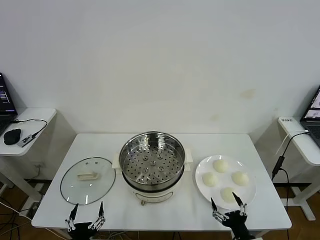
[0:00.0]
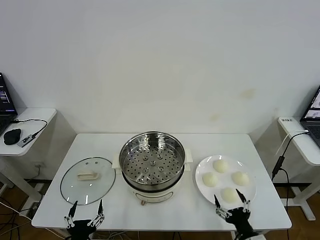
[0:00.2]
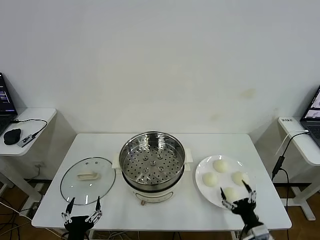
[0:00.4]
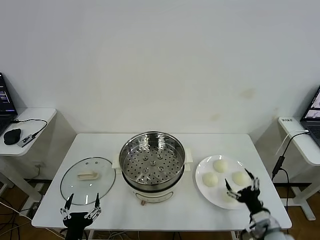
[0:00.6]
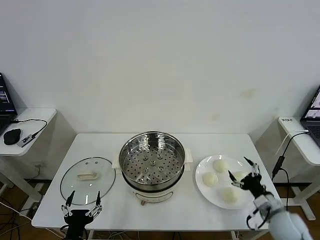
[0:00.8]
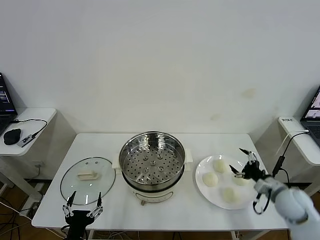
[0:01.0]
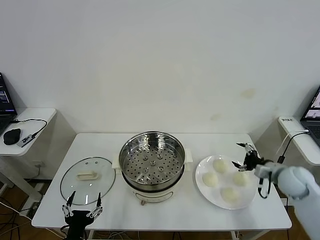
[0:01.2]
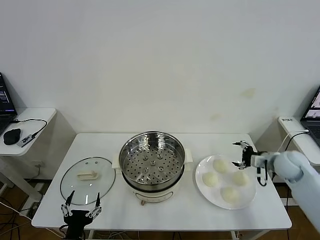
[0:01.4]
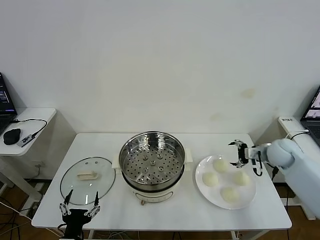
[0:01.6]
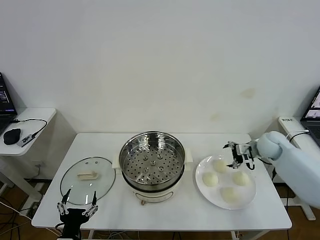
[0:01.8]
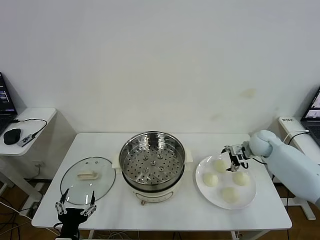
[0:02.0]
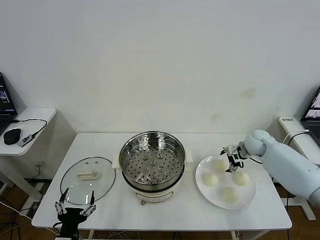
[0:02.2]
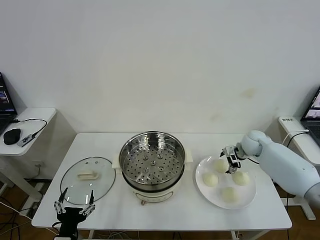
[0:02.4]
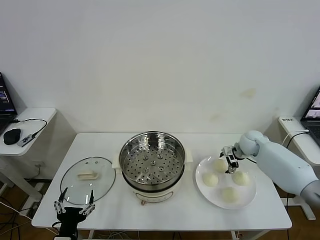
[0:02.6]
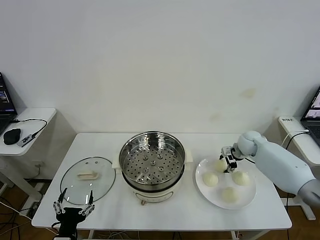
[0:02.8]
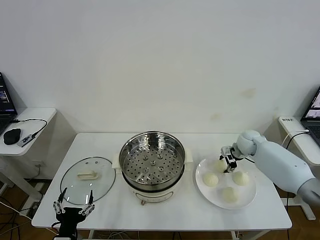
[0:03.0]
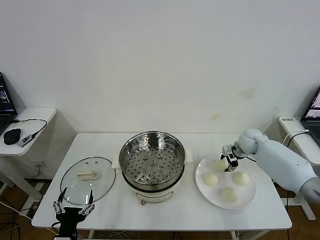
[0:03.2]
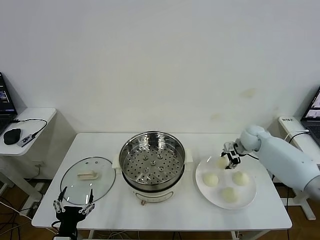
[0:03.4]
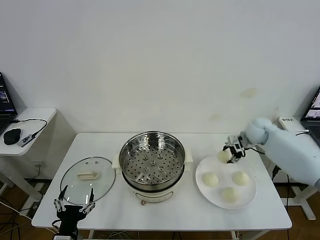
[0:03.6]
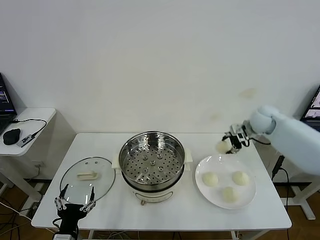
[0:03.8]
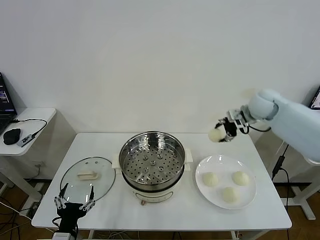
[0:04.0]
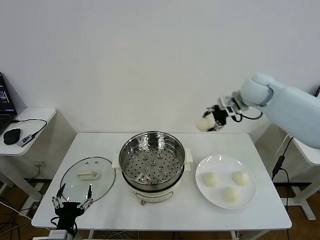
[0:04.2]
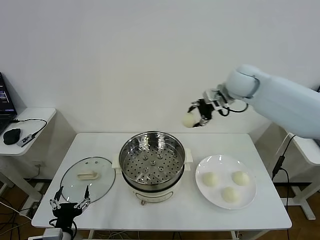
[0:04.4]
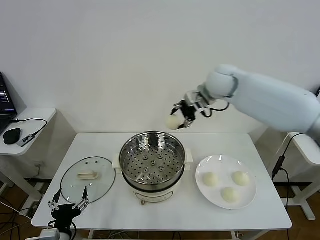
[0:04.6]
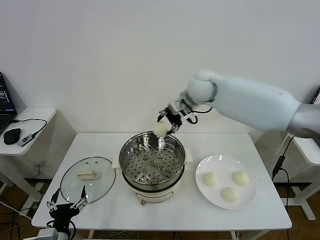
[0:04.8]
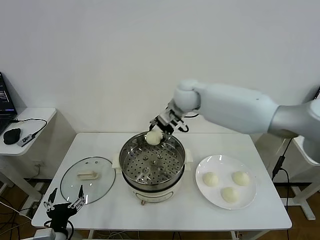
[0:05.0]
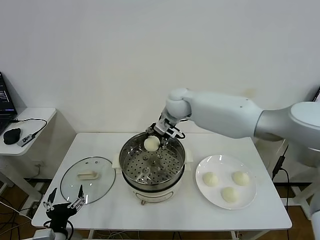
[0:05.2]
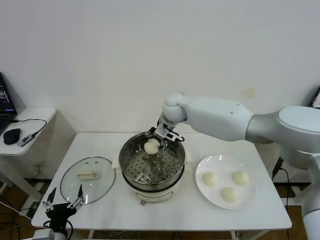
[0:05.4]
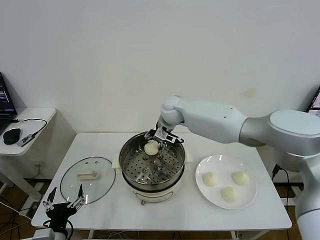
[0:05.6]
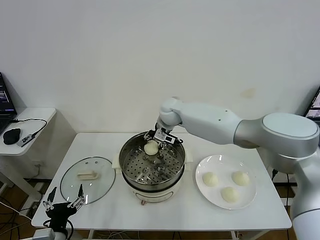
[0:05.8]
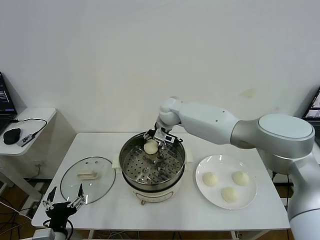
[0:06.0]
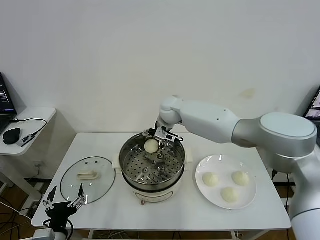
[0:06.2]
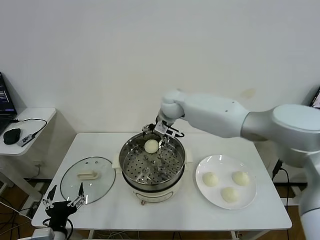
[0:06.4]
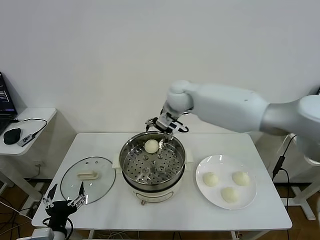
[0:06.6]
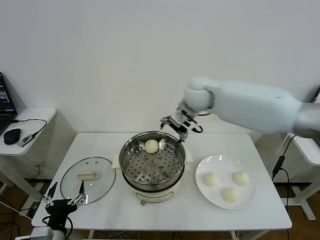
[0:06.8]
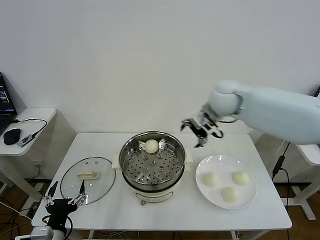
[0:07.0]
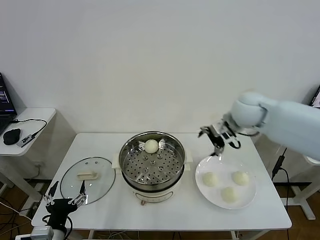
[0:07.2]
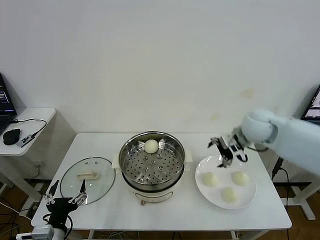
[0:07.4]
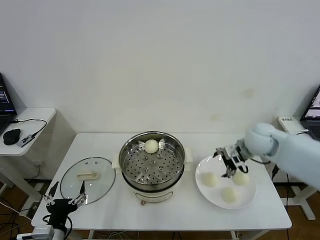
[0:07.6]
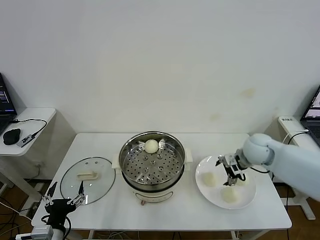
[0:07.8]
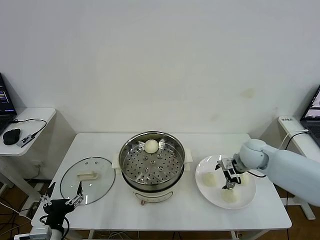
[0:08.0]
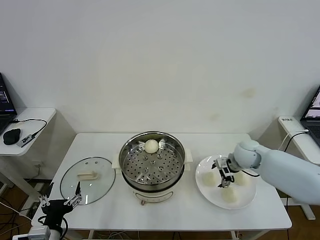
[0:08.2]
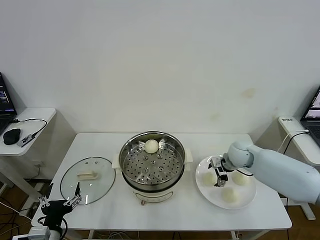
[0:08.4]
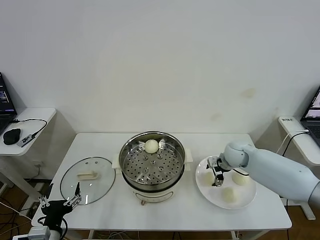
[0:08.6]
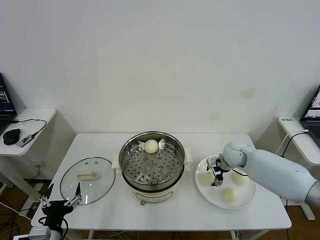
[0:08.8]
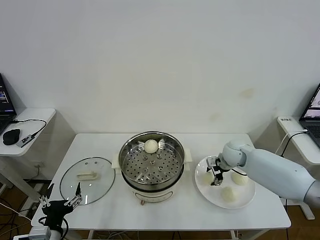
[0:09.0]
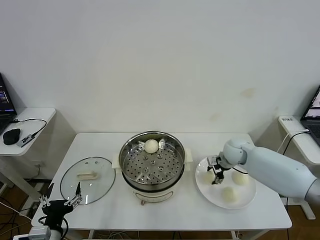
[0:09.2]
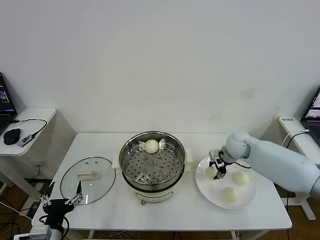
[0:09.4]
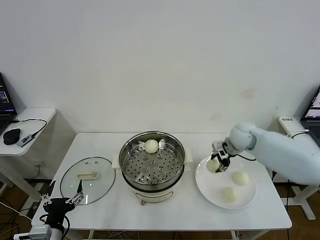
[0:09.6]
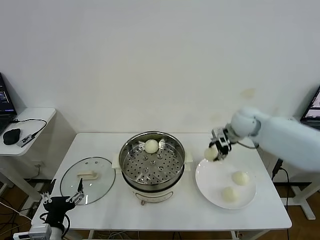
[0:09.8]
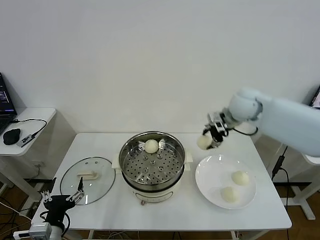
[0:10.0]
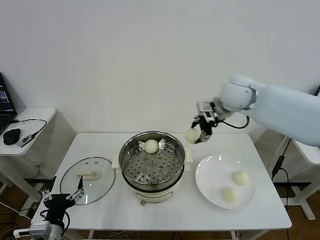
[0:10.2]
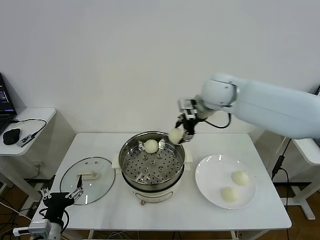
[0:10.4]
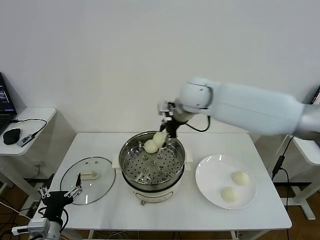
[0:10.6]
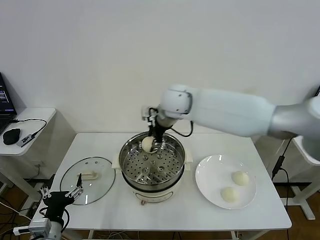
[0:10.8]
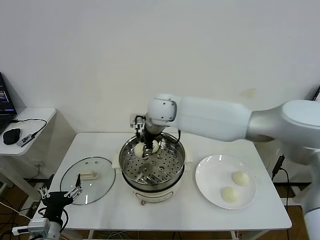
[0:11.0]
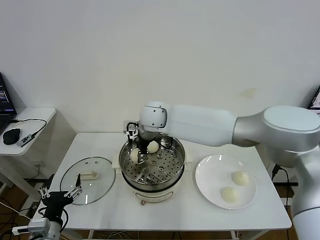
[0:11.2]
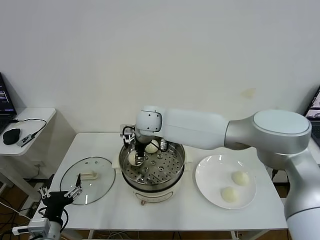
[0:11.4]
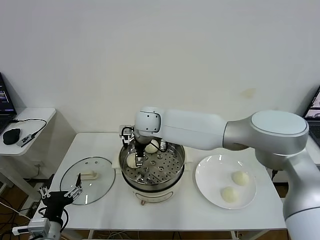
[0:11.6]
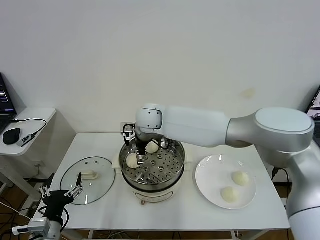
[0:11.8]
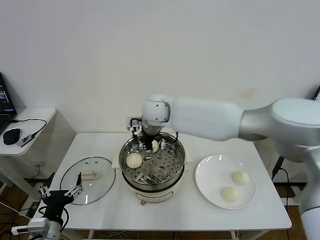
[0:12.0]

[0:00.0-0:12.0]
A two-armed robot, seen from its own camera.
Task of the whole recording: take steamed baozi put them in steamer then cover it.
Step, 0.0 to 3.0 s: Grasp the baozi in the plate with right gripper.
Step, 3.2 to 6.2 s: Place the baozi on the steamer with right gripper.
Step, 6.4 to 9.2 s: Grasp the baozi in the plate with right gripper.
Step, 9.6 to 11.6 s: Place the baozi on the steamer with right gripper.
1.6 to 3.0 s: The right gripper shifts some 10 cm forward and to the left, and closes up.
3.0 to 4.4 s: The right gripper heads upward and to the left, covering about 30 cm.
4.4 to 6.0 s: The right gripper goes about 25 cm to the left and downward.
6.0 to 7.6 s: The right gripper is displaced to the right and backward by some 30 cm, and opens up.
7.6 to 9.0 s: The right gripper is displaced downward by approximately 10 cm, and closes.
9.0 to 10.4 s: The right gripper moves upward and to the left, roughly 30 cm.
10.4 to 12.0 s: The right gripper goes about 15 cm to the left and downward, and opens up.

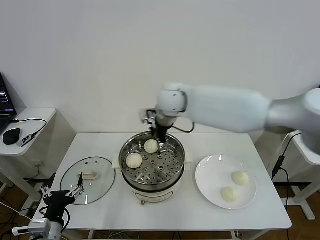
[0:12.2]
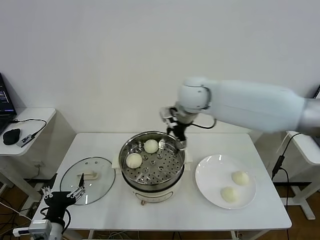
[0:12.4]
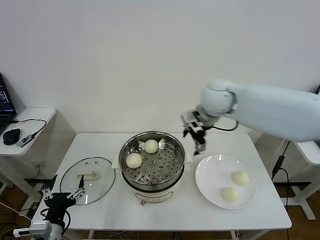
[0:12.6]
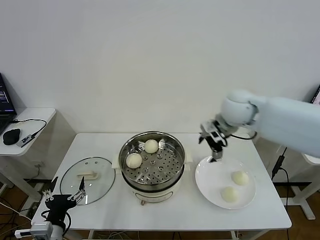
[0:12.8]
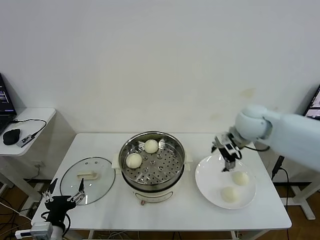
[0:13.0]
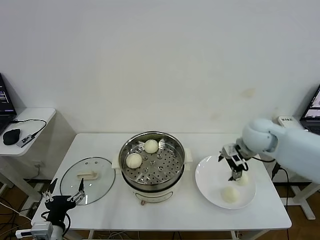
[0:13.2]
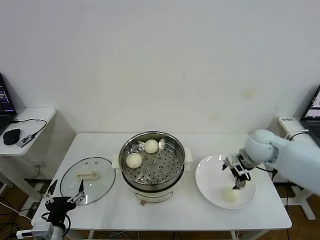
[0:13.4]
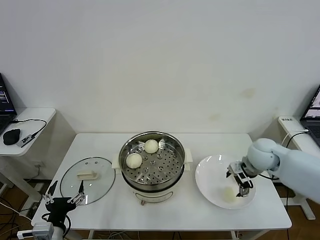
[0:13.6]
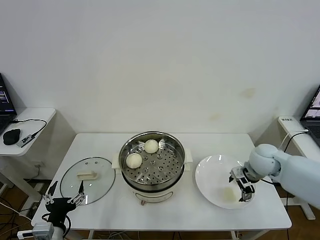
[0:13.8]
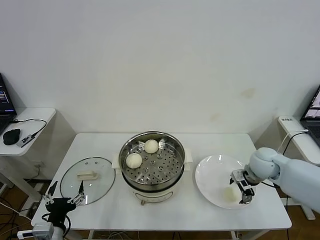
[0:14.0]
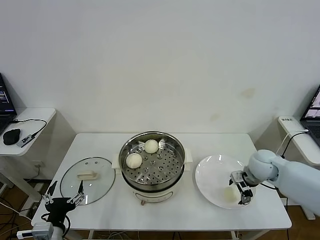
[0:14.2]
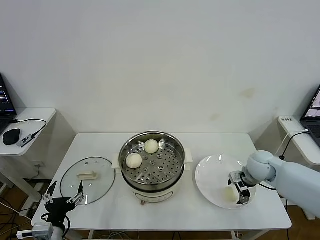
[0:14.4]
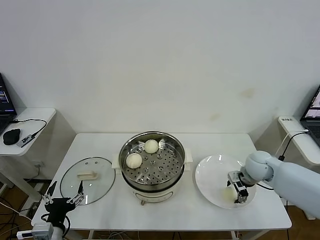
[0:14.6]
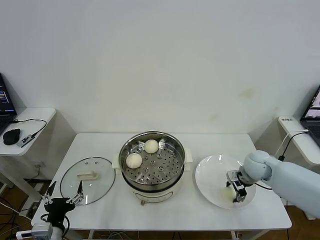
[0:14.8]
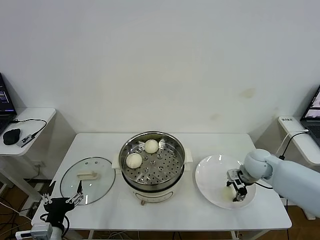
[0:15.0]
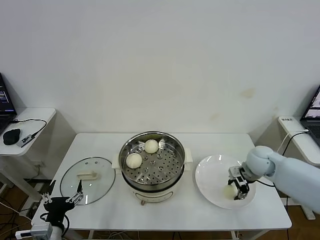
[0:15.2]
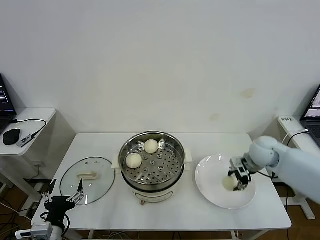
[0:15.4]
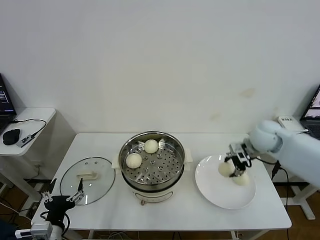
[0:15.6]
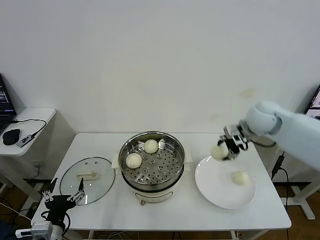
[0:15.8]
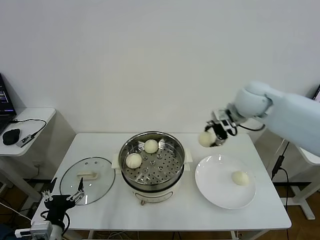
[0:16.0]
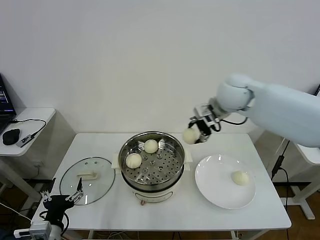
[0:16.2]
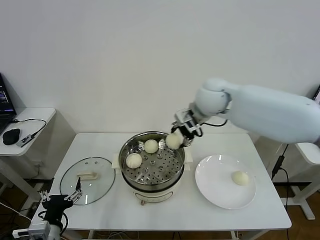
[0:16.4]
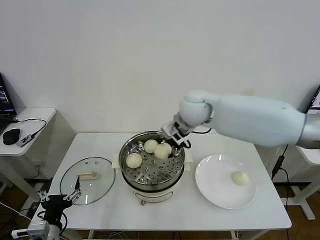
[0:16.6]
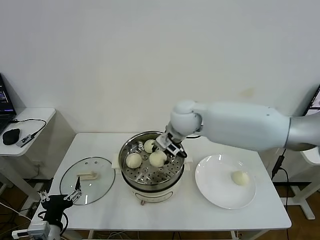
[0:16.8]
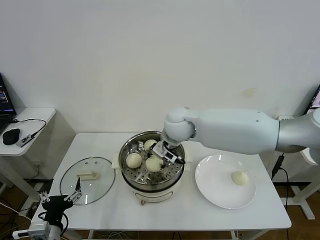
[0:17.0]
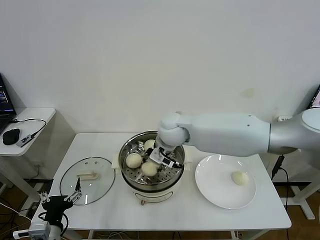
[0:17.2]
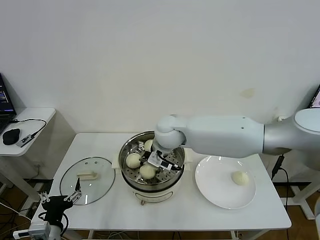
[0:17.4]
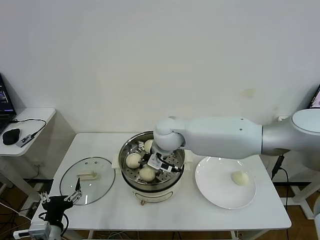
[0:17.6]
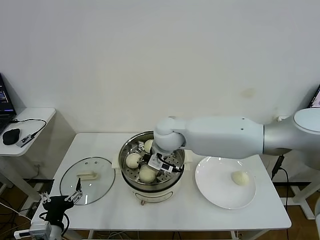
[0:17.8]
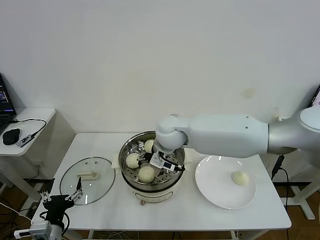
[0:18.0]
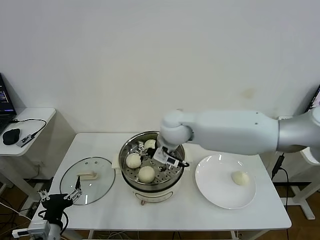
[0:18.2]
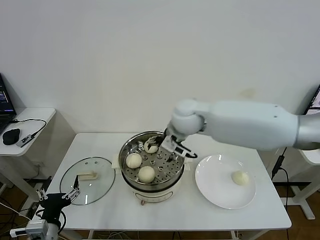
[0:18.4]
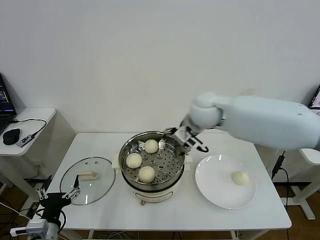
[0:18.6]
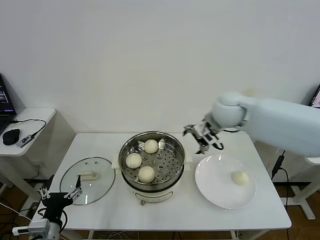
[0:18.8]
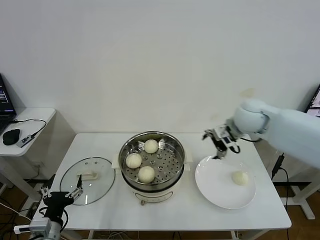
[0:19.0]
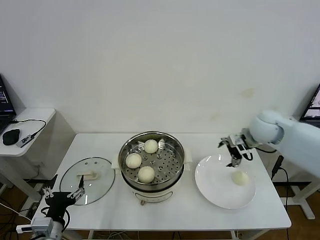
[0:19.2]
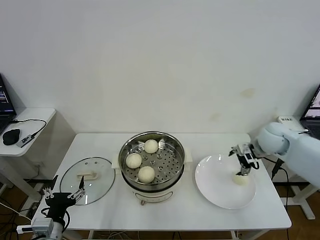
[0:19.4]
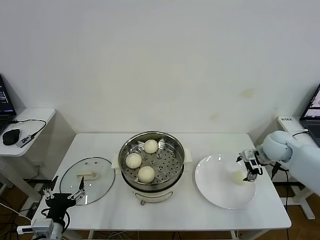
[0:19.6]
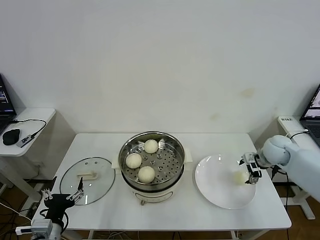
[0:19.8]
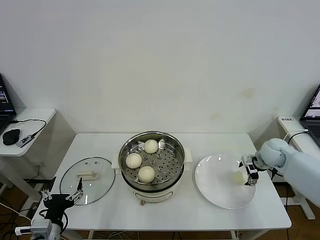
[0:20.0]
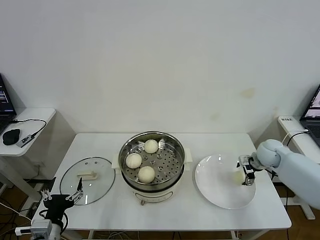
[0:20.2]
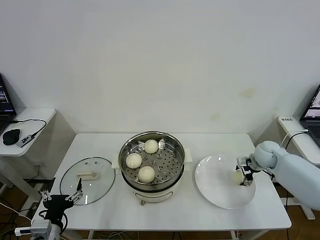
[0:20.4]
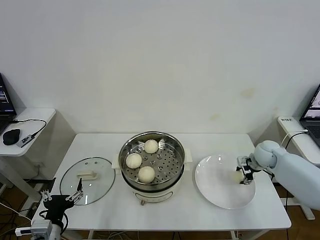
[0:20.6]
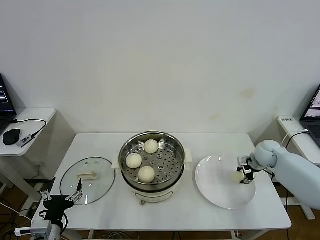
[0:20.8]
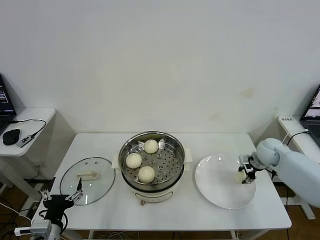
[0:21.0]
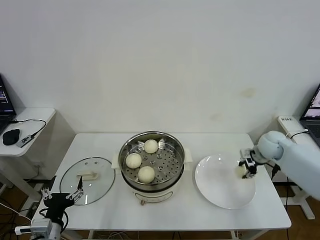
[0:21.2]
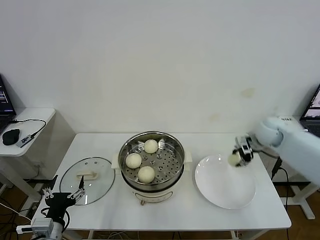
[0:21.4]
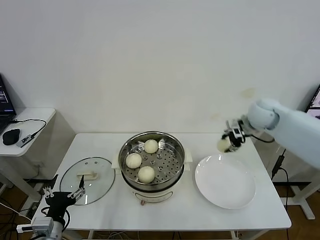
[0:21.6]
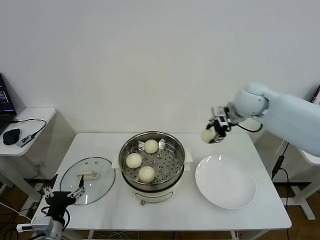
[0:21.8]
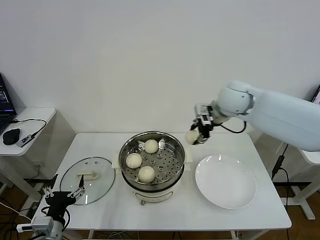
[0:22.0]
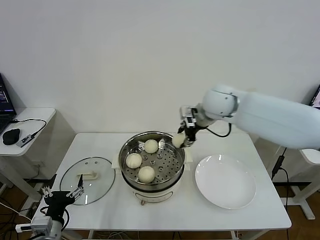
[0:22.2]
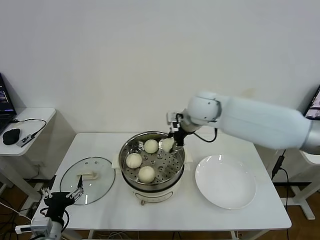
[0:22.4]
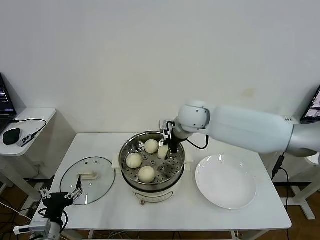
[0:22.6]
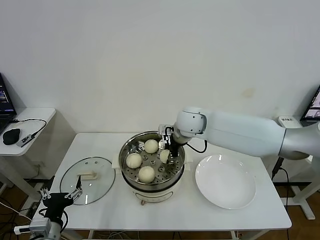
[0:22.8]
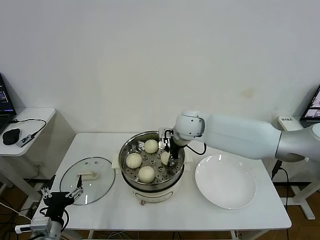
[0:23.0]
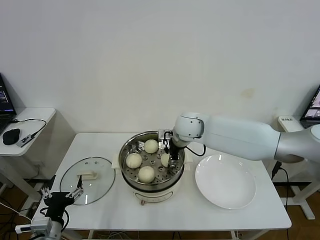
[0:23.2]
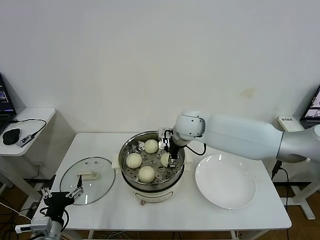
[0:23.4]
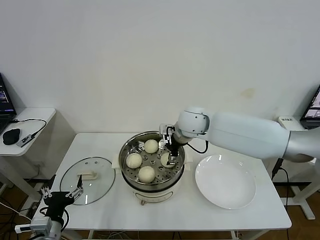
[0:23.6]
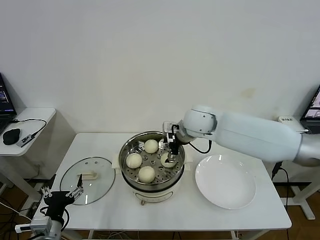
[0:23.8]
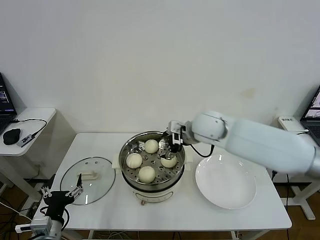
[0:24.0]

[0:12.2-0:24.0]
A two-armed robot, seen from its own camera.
Task of the whole recording: take steamed baozi put them in steamer then cover it.
Step, 12.2 to 15.0 s: Grasp the baozi in the plate with right gripper.
Step, 15.4 to 17.8 s: Place the baozi on the steamer with right gripper.
Step, 18.2 to 20.8 s: Grasp the baozi in the plate with right gripper.
Step, 21.0 to 23.4 s: Place the baozi on the steamer with right gripper.
12.2 to 13.6 s: The right gripper shifts approximately 35 cm to the right and downward.
13.6 to 15.2 s: The right gripper closes its fingers.
15.2 to 16.6 s: The right gripper shifts roughly 30 cm to the left and upward.
16.6 to 18.2 s: The right gripper opens up.
18.2 to 19.6 s: The right gripper goes some 35 cm to the right.
19.6 to 21.0 s: The right gripper moves downward, approximately 5 cm, and closes its fingers.
21.0 to 22.6 s: The right gripper is displaced to the left and upward by about 35 cm.
22.6 to 24.0 s: The right gripper changes place by some 5 cm, and opens its fingers.
